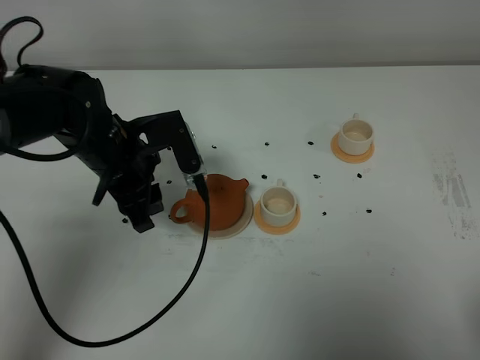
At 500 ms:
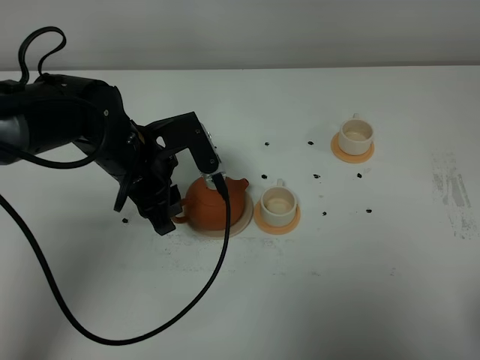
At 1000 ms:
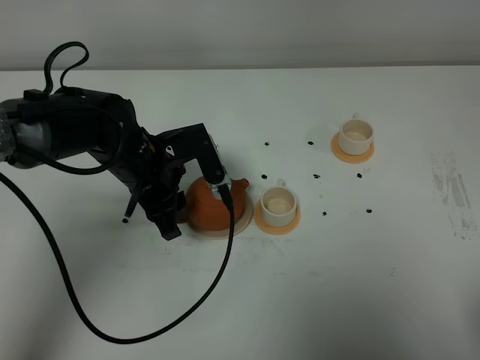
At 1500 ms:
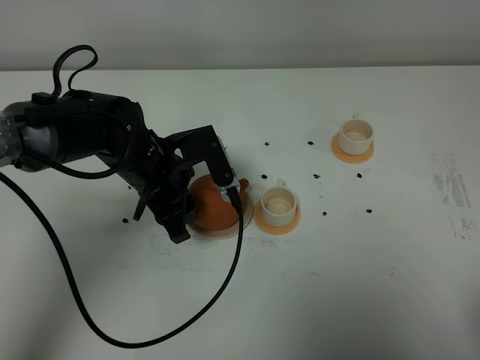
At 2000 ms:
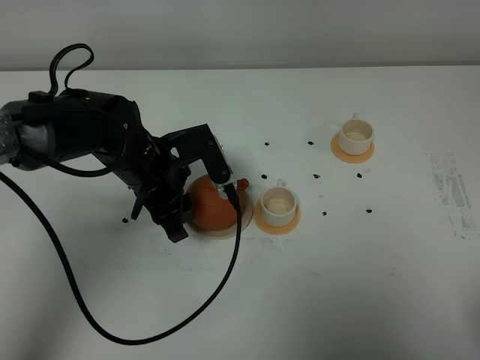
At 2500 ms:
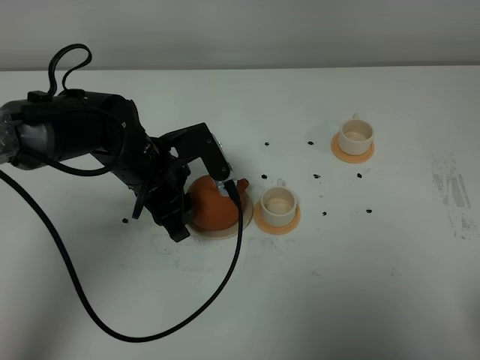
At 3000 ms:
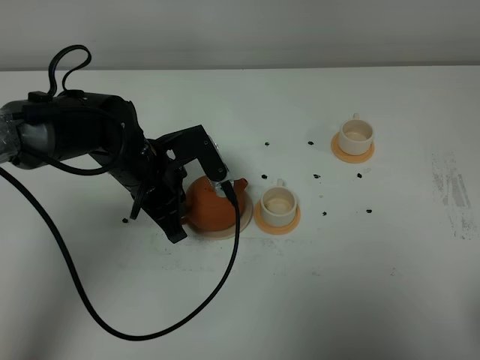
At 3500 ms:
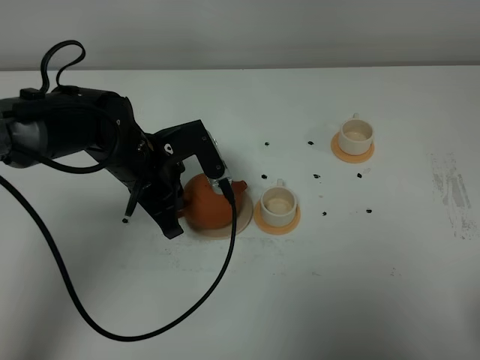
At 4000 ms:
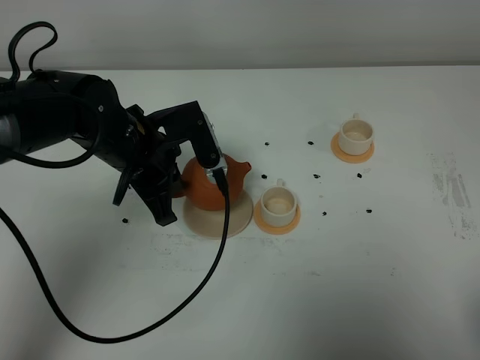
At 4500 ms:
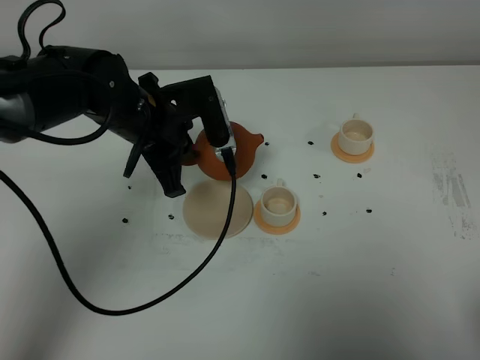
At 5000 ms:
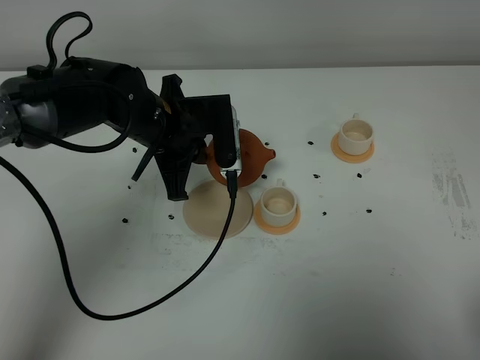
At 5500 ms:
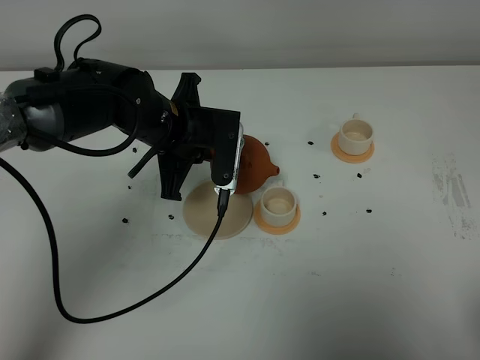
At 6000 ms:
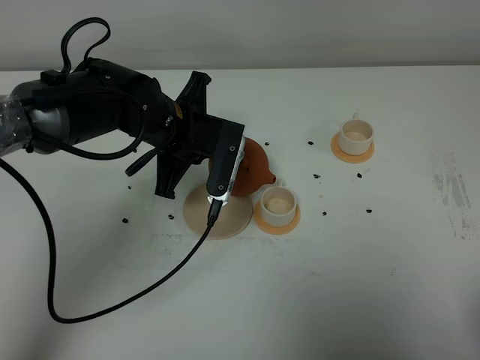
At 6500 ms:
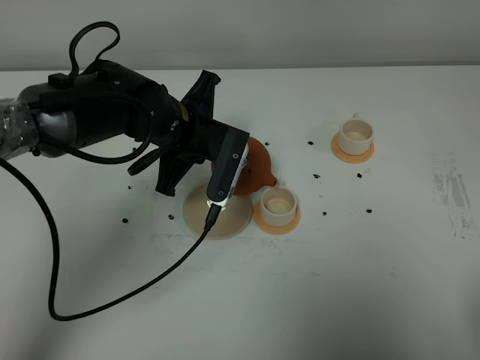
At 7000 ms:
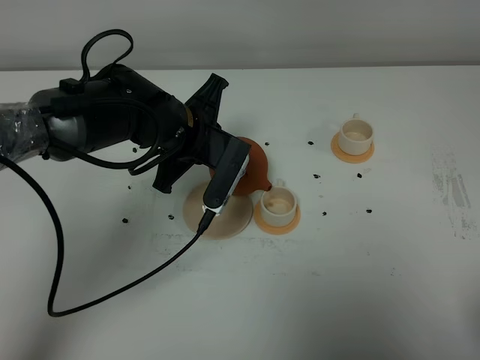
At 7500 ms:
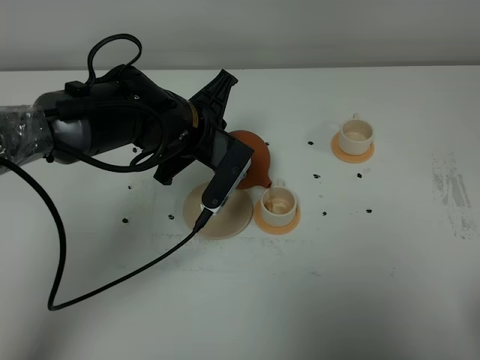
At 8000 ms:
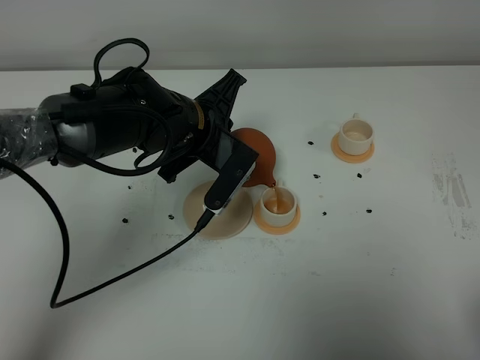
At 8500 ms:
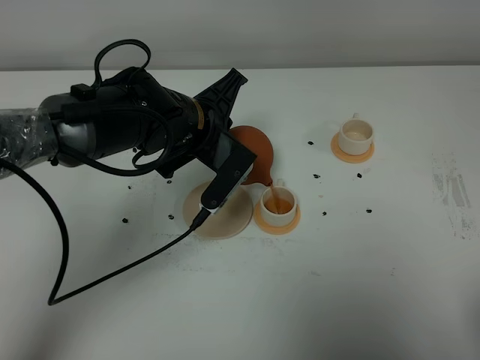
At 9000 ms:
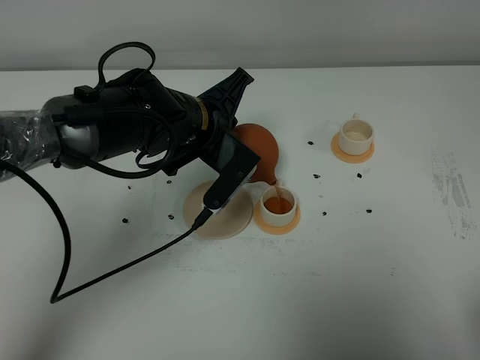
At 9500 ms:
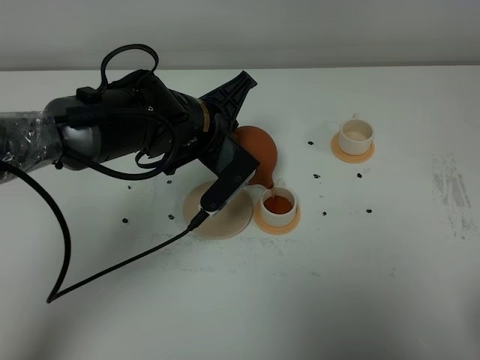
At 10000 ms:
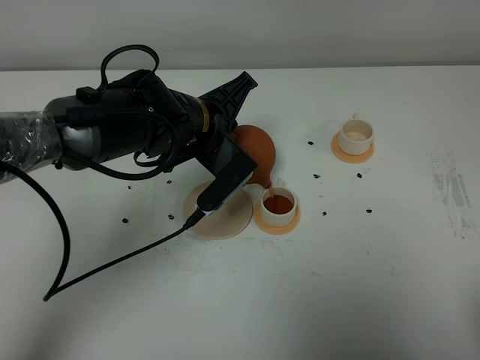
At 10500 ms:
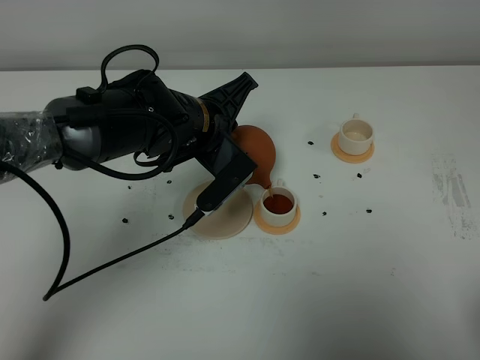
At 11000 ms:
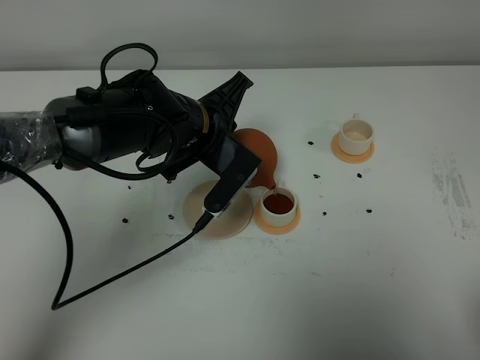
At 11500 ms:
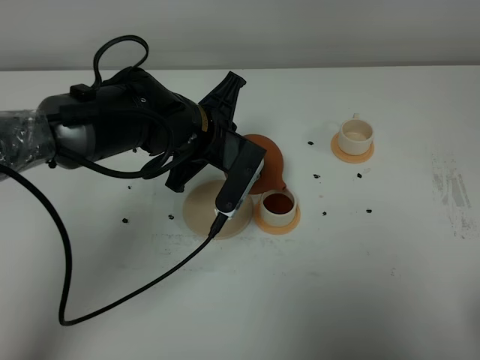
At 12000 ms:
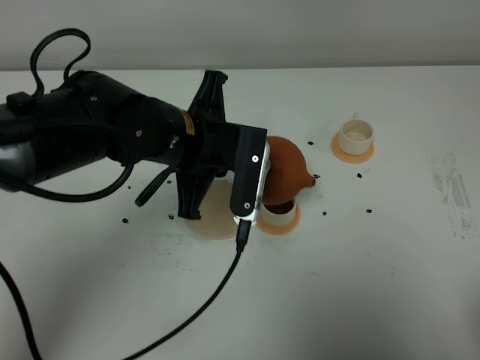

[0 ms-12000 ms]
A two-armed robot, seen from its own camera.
Task of the whole recording: grasp the brown teapot and pour the tea into the two white teacups one by one, put the brown teapot back in its original place.
Step, 0 ms to 3500 ms: Pick up the teapot with the left gripper.
Step, 4000 ms to 11500 ms: Pour tea into the teacup with the left gripper.
0 ms to 2000 ms: The grippers make only small movements.
2000 ms to 4000 ms: The left gripper closes its fingers.
8000 ms to 10000 ms: There are only small adjustments of the grippers.
10000 ms to 12000 ms: The left gripper is displaced backward by some 5 cm.

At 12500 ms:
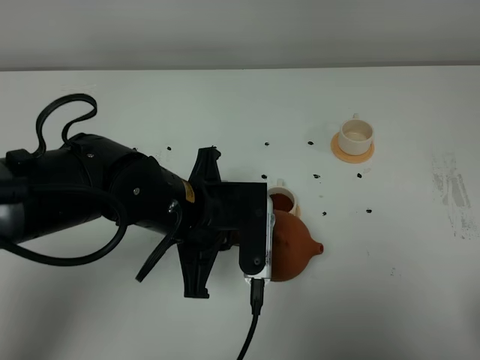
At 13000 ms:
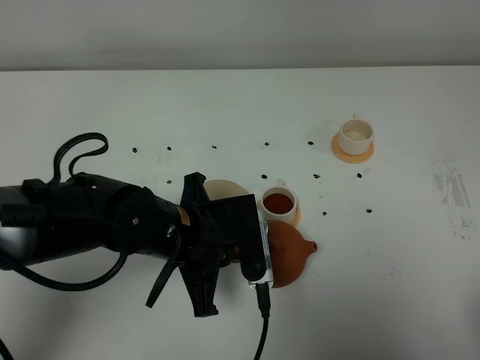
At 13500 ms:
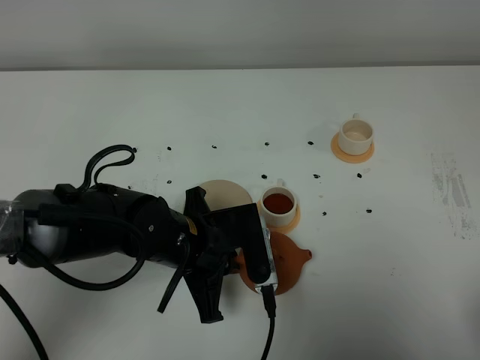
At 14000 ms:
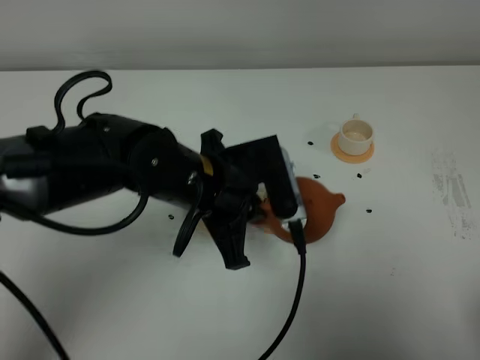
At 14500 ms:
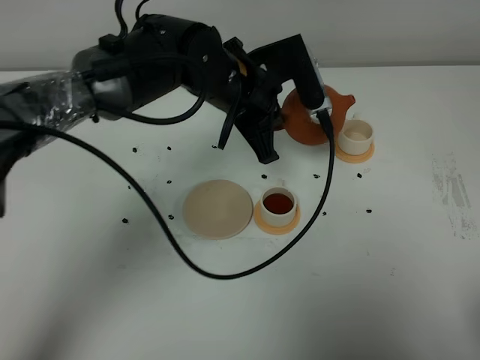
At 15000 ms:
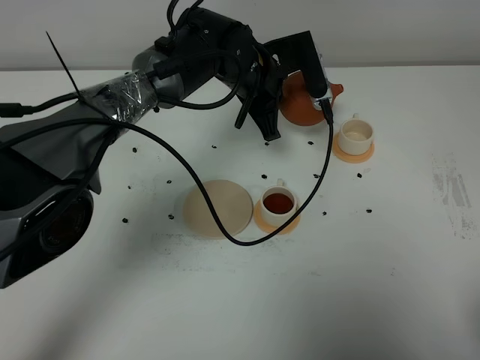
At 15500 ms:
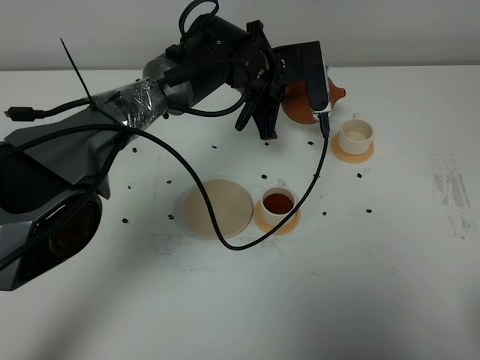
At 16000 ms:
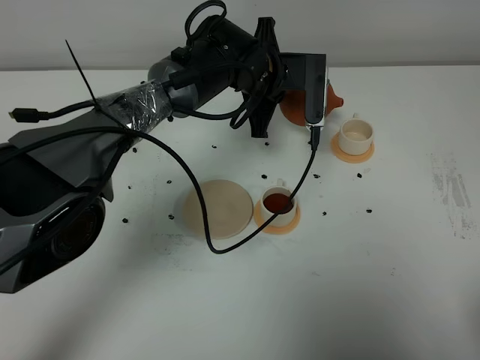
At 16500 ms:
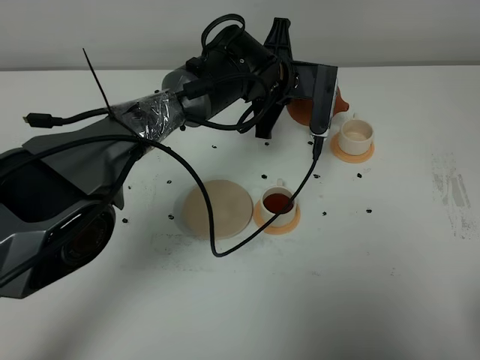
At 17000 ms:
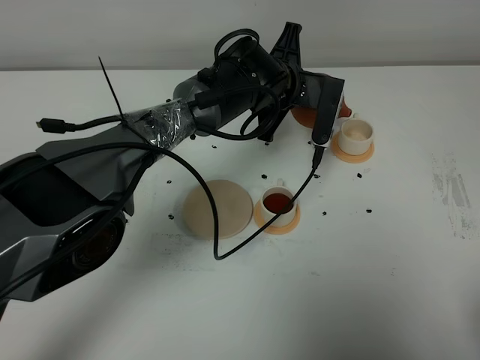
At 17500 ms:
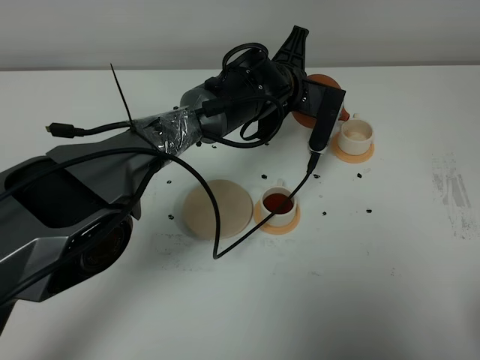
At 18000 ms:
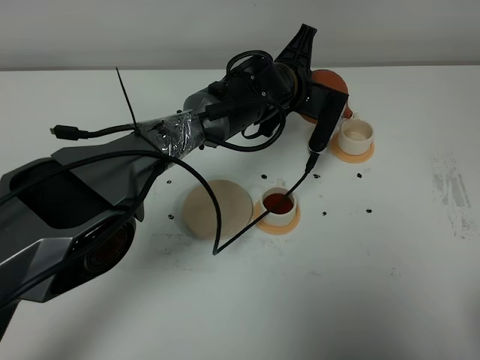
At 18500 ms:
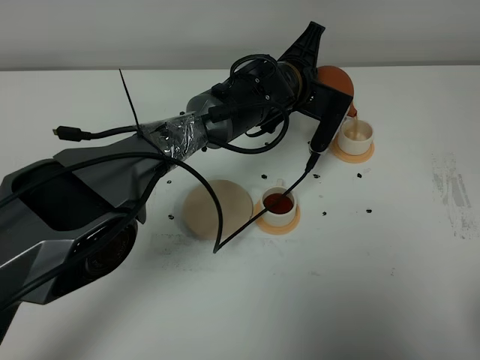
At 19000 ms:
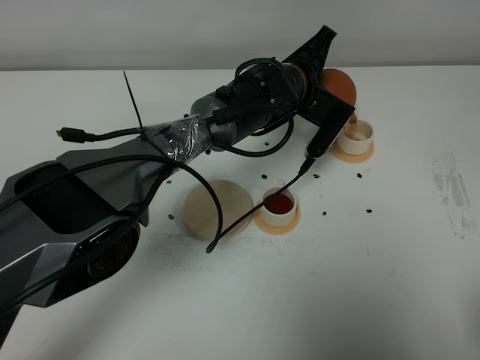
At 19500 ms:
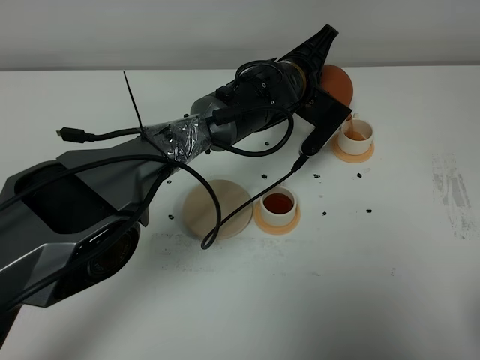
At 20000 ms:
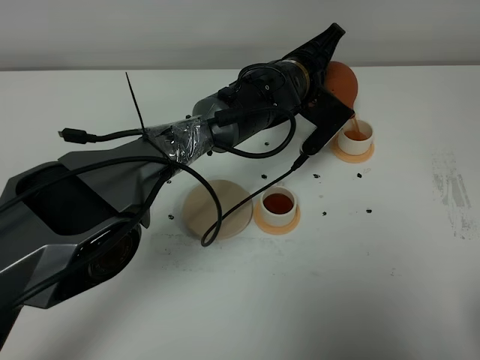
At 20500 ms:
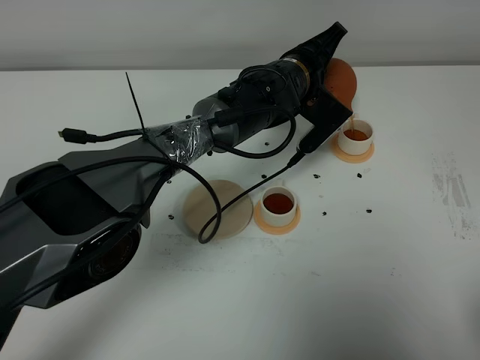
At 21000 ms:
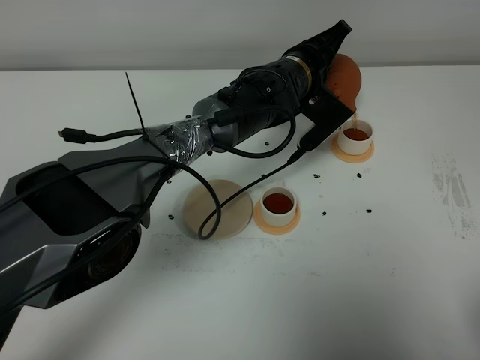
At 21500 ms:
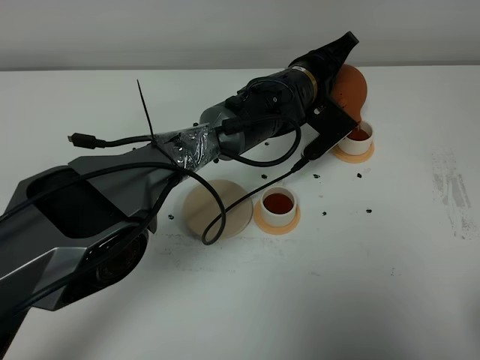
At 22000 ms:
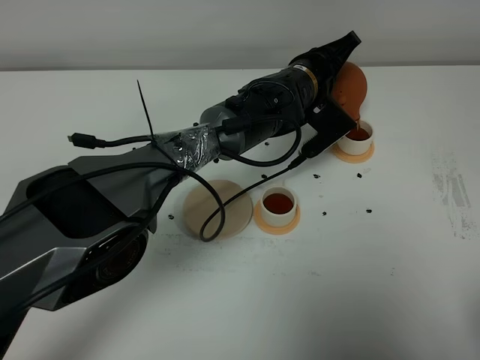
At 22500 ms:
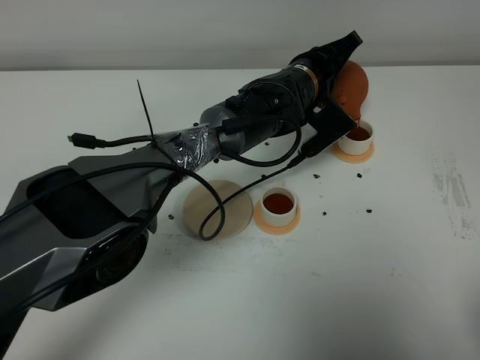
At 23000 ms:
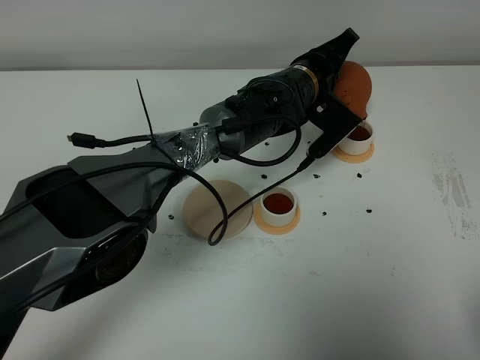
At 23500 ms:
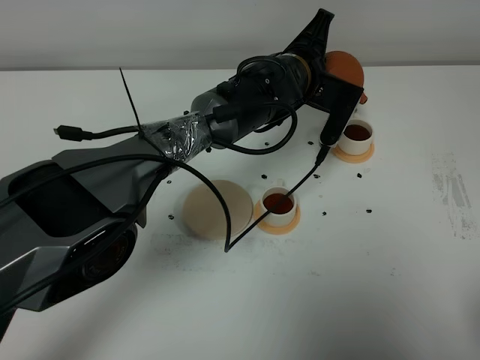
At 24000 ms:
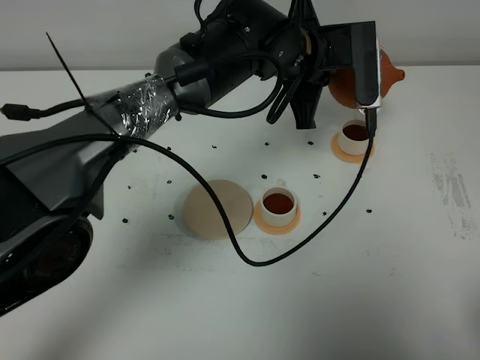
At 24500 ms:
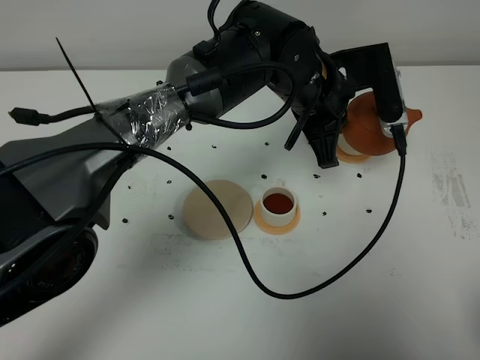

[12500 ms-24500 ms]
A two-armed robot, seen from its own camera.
Task of the whole recording: grasp the brown teapot and pour the tea into the two white teacups one by one, put the brown teapot back in its original place.
Step, 12500 ms to 23500 ms: Pour tea into the teacup with the left gripper.
12500 ms to 14500 ms: The left gripper shifts some 15 cm forward.
14500 ms to 16500 ms: The left gripper travels forward by some 5 cm.
18500 ms to 20500 ms: There are only small adjustments of the grippers.
20500 ms to 22500 ms: There are only small adjustments of the grippers.
22500 ms to 24500 ms: The left gripper shifts some 10 cm upward and backward.

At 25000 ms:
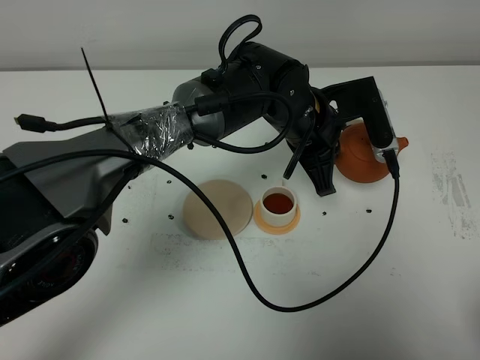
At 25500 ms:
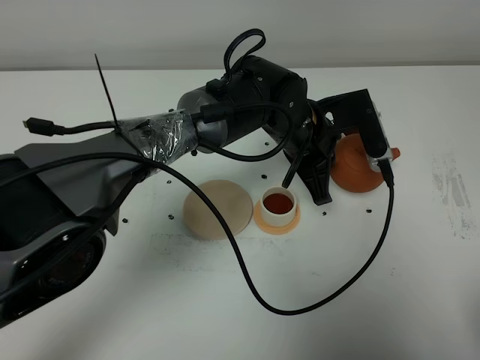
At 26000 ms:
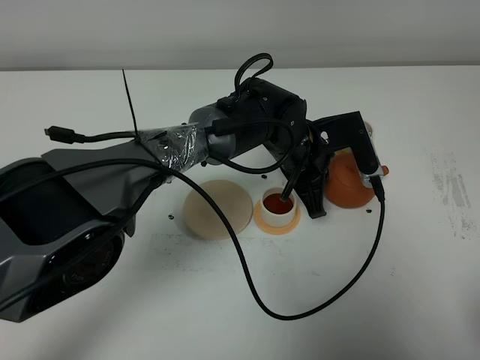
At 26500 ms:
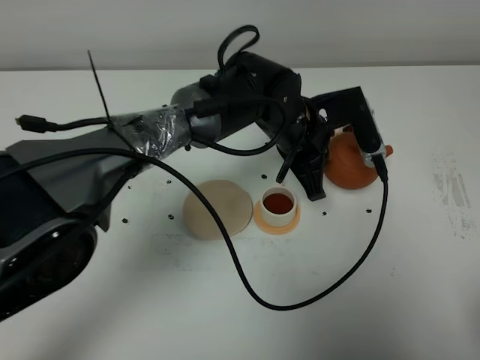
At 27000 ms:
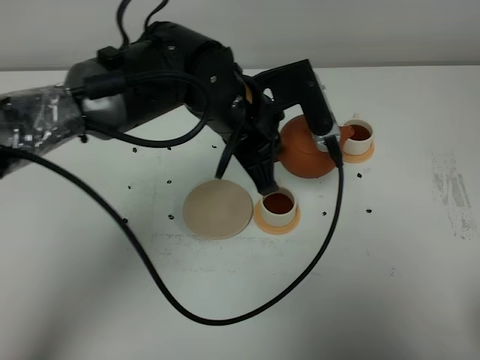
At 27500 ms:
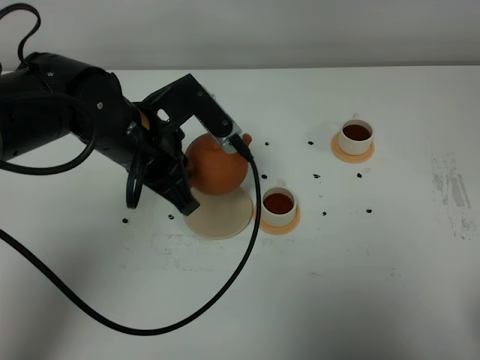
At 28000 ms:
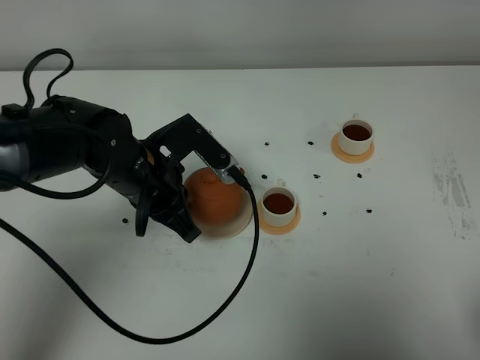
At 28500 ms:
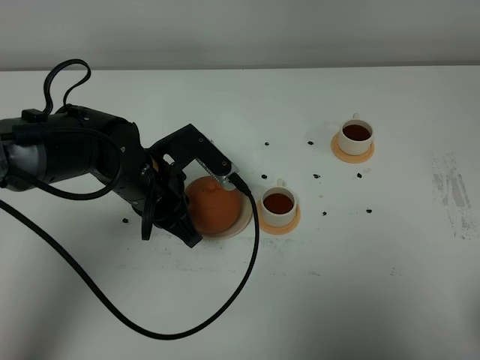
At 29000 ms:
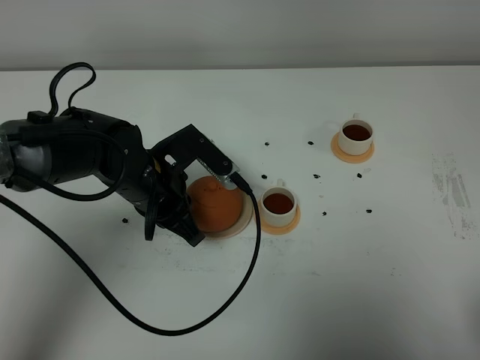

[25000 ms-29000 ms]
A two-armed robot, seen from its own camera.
Task of the whole recording: grasp the brown teapot and pour the tea into the two white teacups one by one, put the brown teapot back in its original place.
25000 ms to 27000 ms: The left gripper travels to the left by some 10 cm.
27000 ms to 29000 ms: The left gripper goes some 15 cm to the left and downward.
